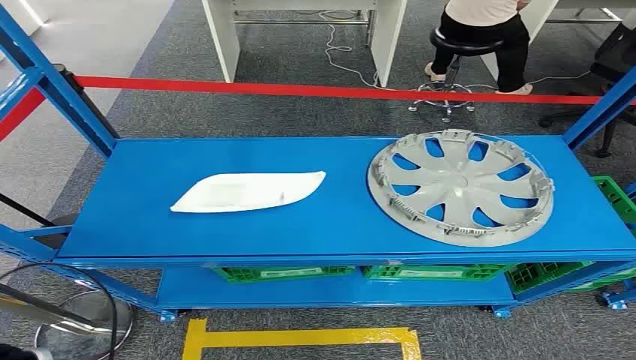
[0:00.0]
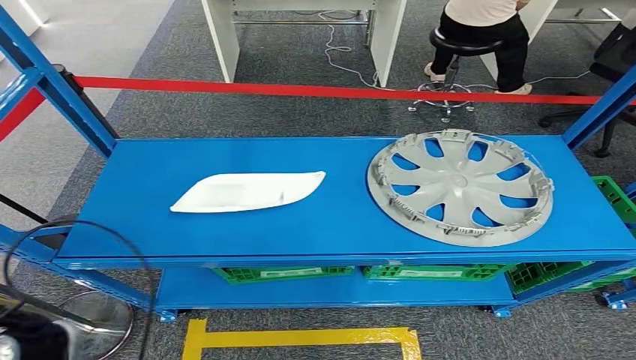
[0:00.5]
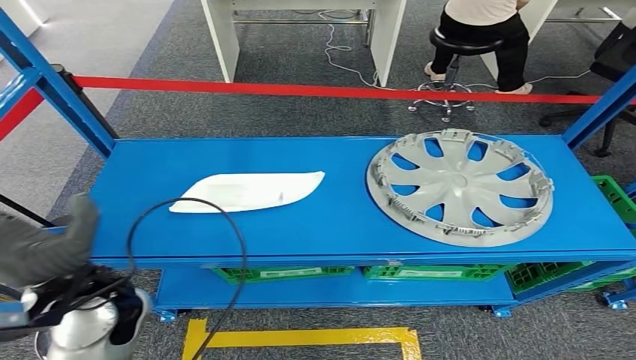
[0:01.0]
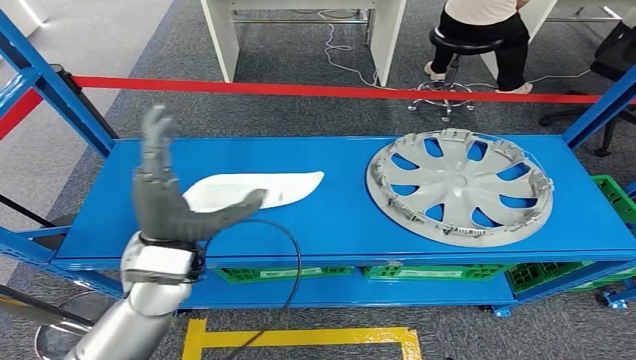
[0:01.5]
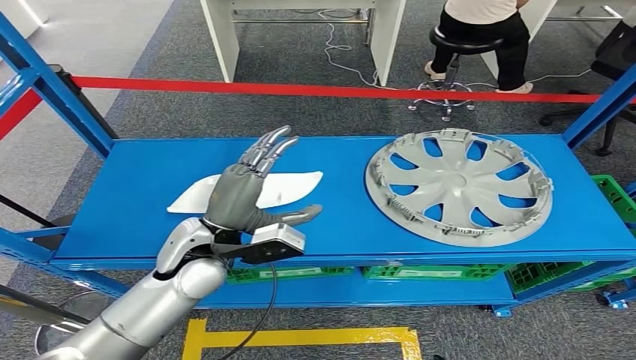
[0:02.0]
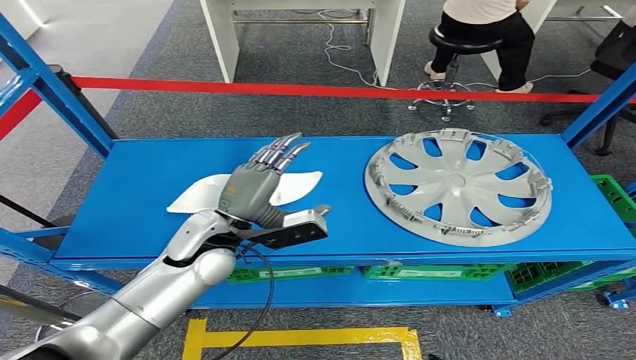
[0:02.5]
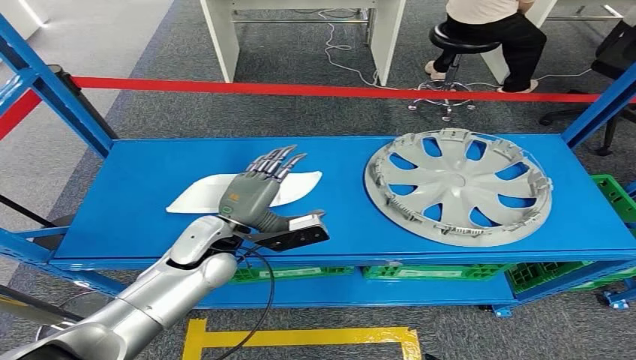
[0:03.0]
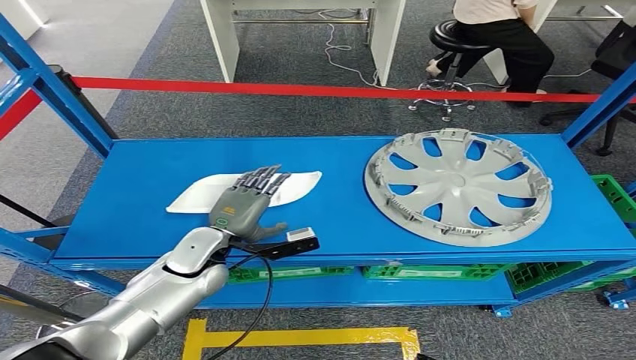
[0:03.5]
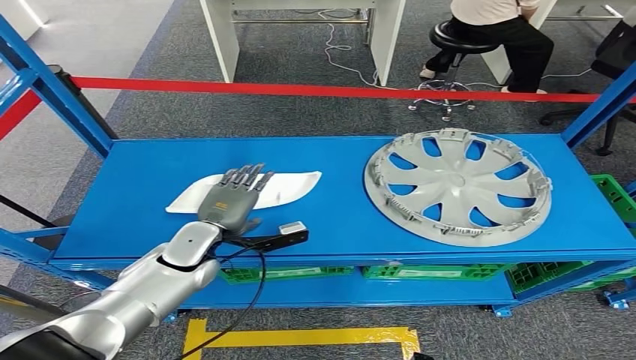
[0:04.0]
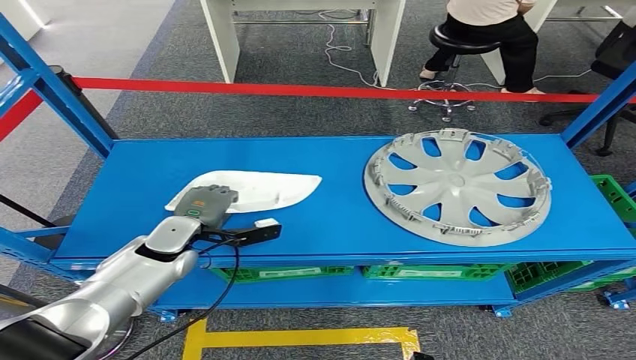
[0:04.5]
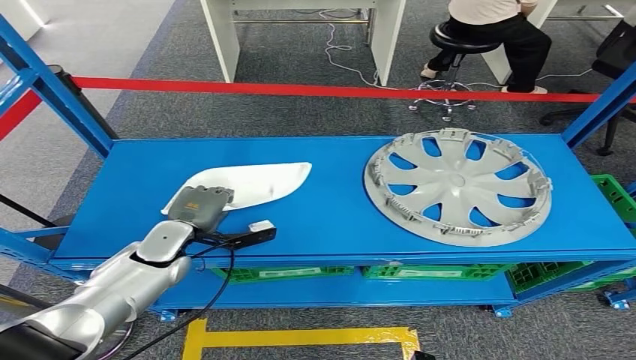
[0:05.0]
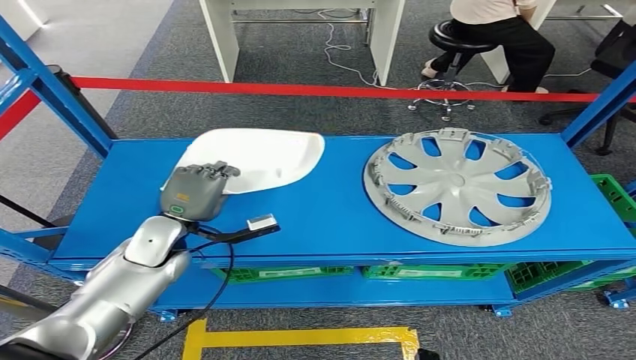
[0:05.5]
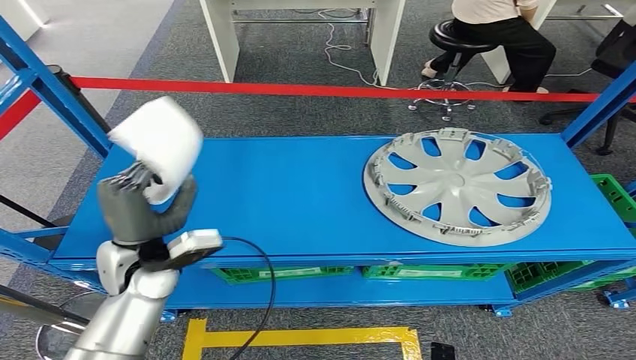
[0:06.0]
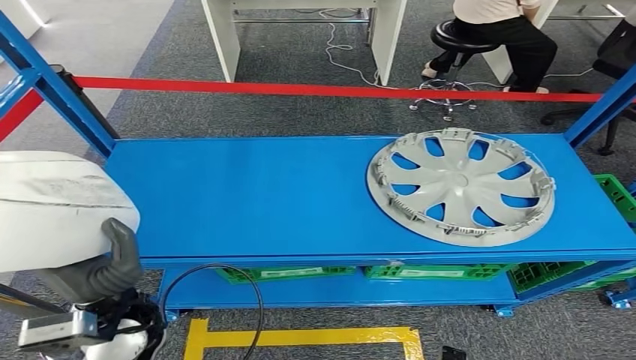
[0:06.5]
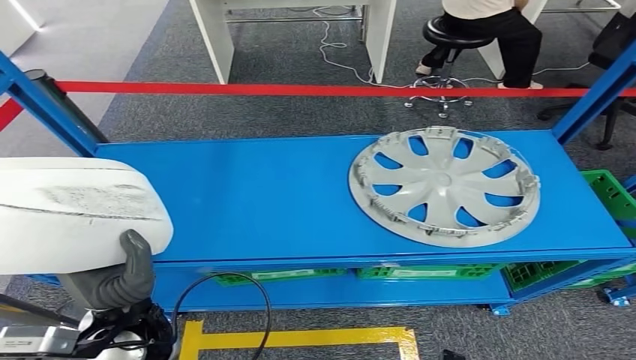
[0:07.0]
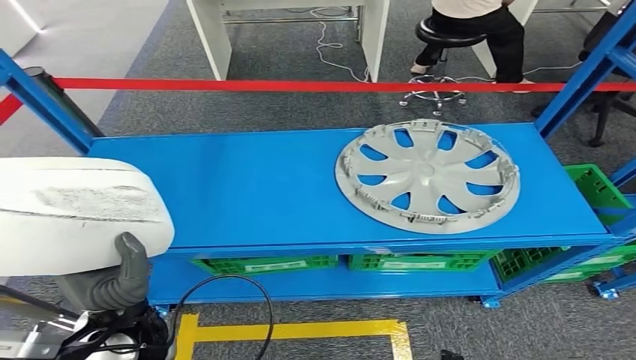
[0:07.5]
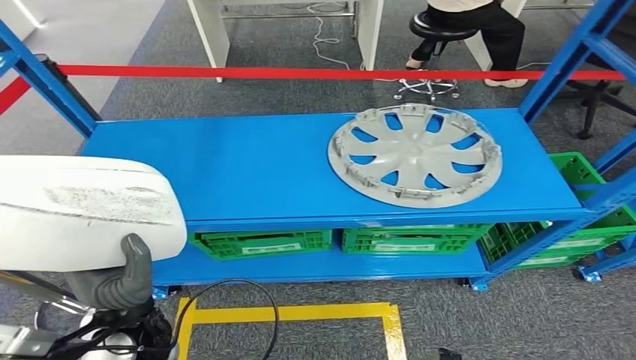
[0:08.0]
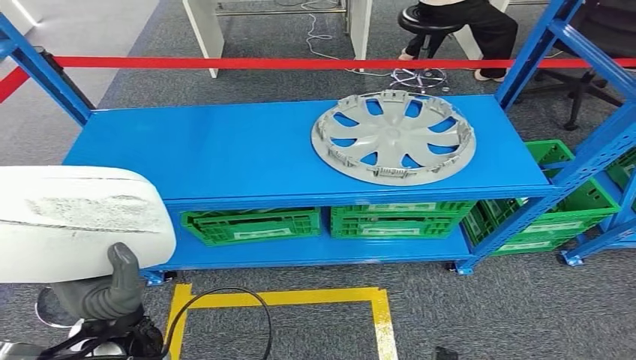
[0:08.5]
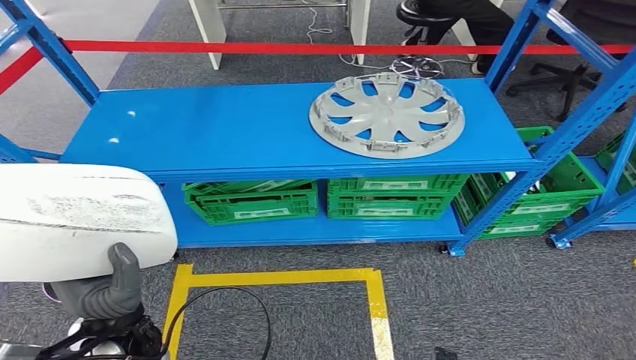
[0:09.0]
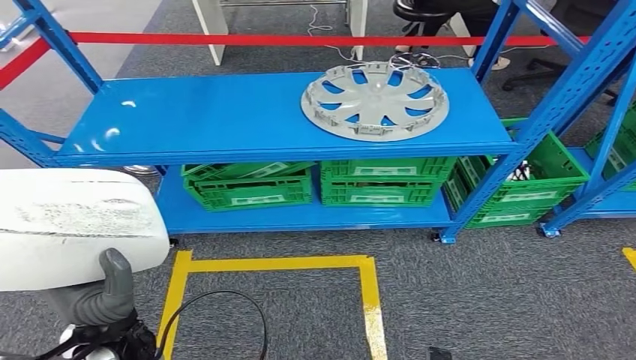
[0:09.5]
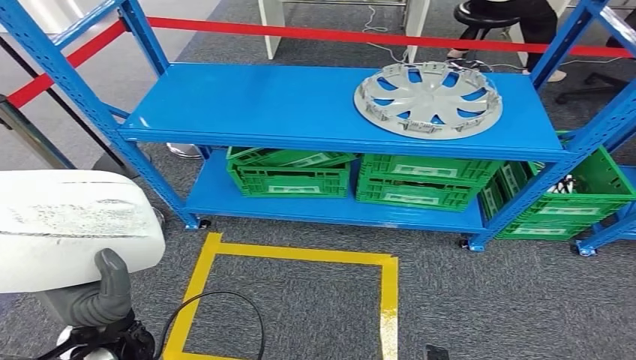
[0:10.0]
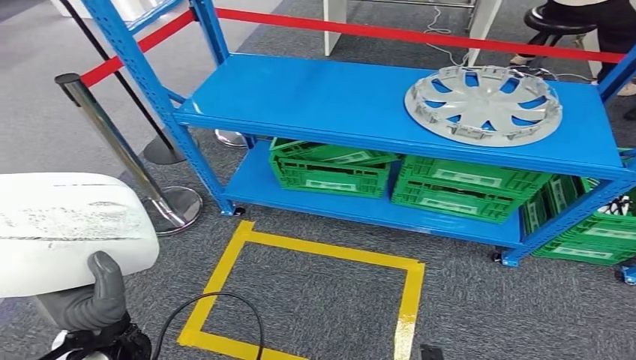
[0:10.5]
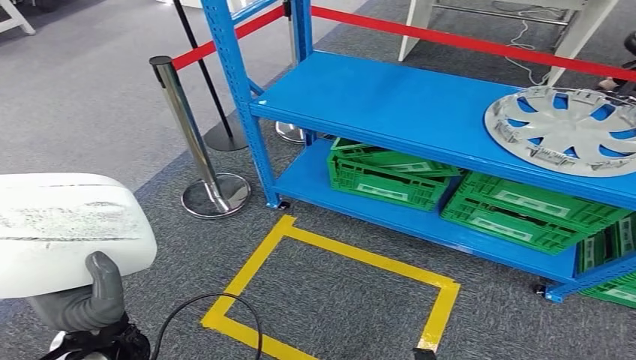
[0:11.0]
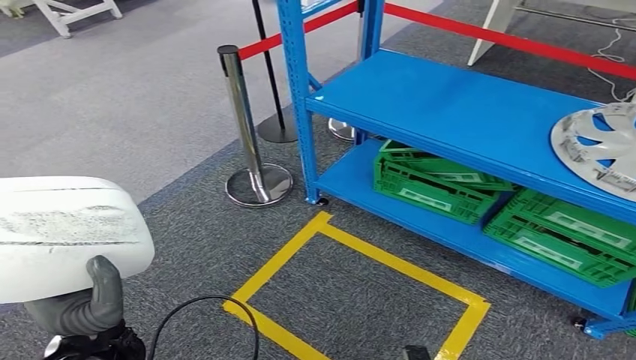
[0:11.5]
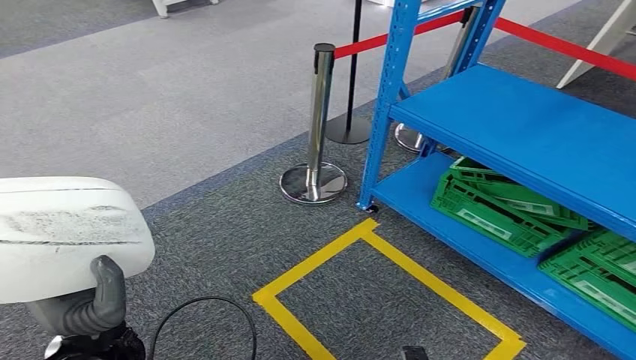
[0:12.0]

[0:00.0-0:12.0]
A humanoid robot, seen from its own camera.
Step, 0:00.0 to 0:05.5: Pick up the small component from the shelf.
0:02.0 to 0:04.0: The left hand moves downward, about 10 cm.
0:04.0 to 0:06.0: The left hand moves upward, roughly 5 cm.

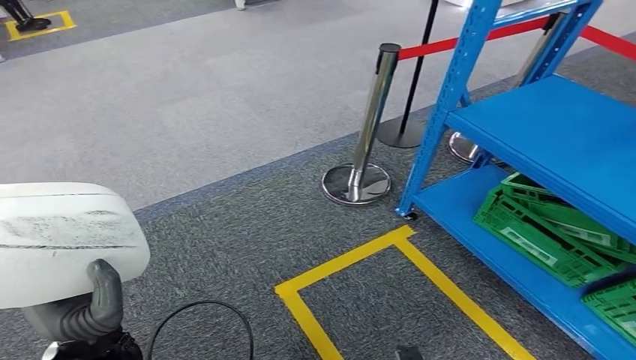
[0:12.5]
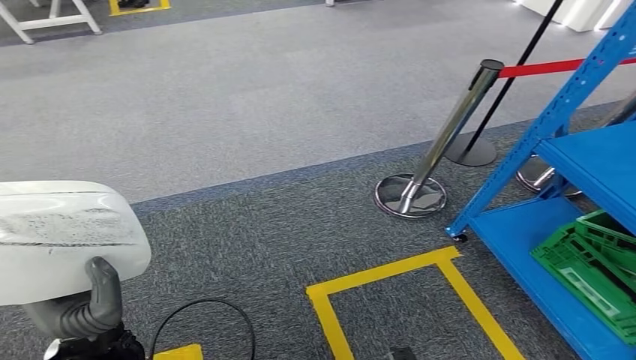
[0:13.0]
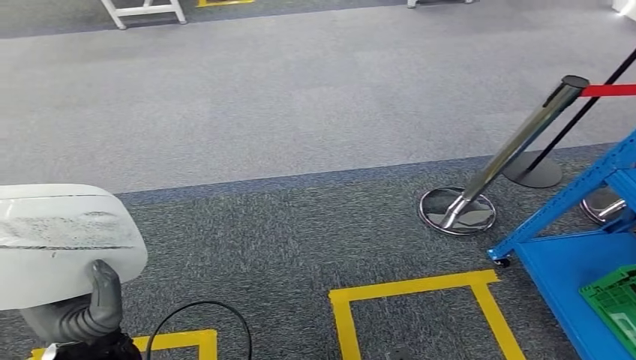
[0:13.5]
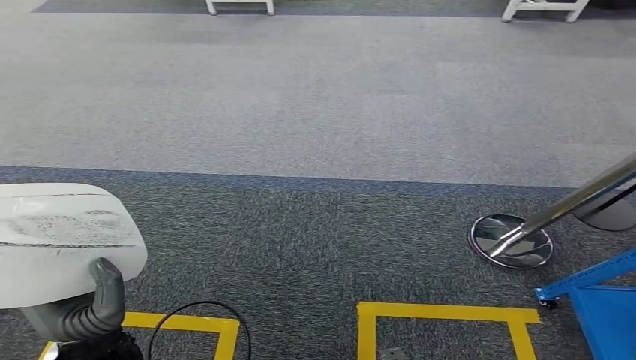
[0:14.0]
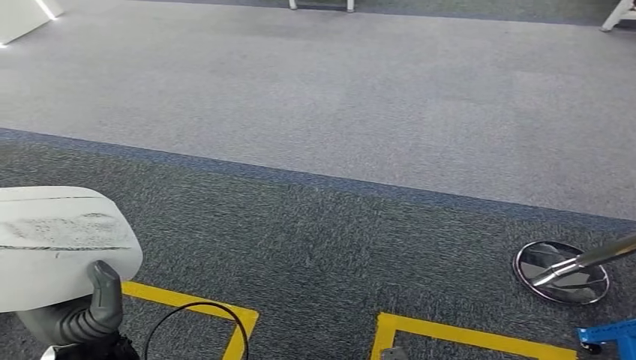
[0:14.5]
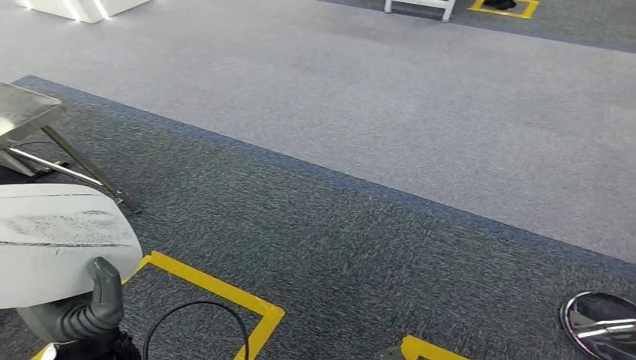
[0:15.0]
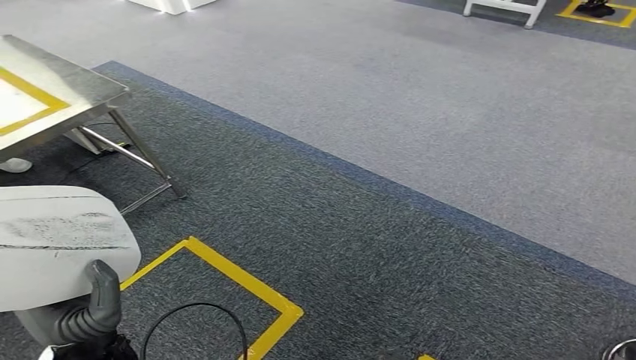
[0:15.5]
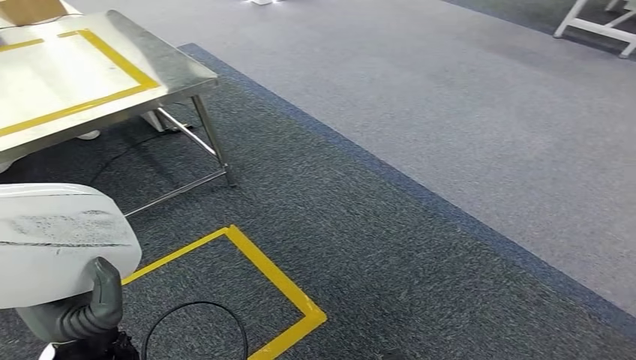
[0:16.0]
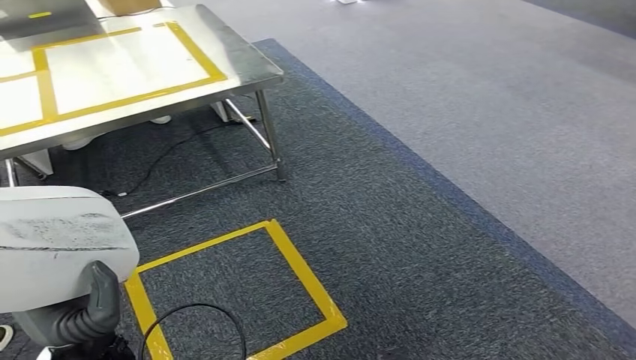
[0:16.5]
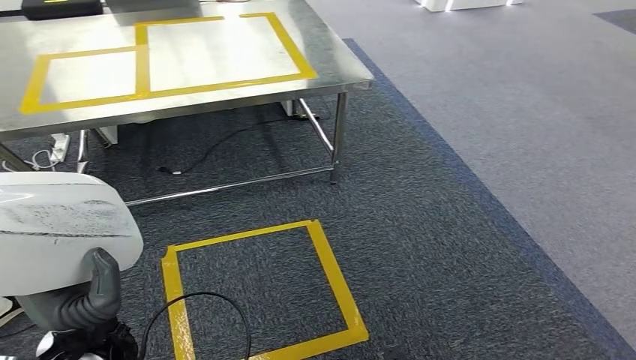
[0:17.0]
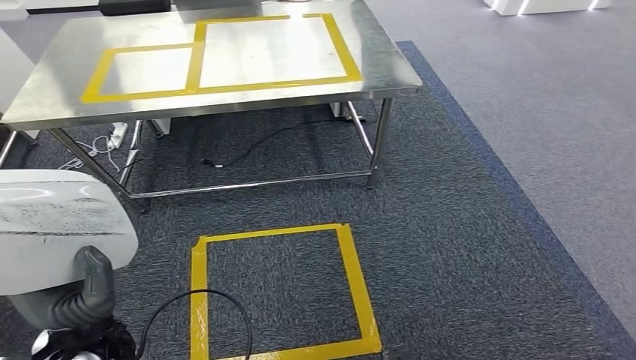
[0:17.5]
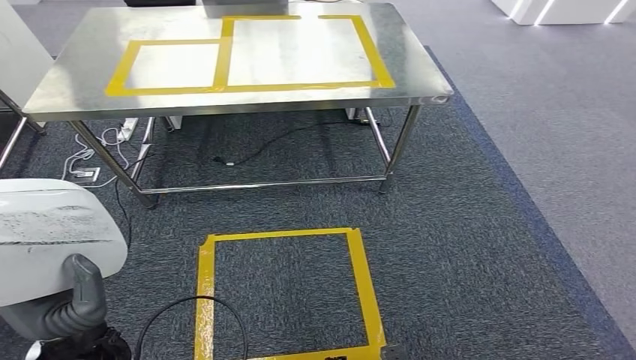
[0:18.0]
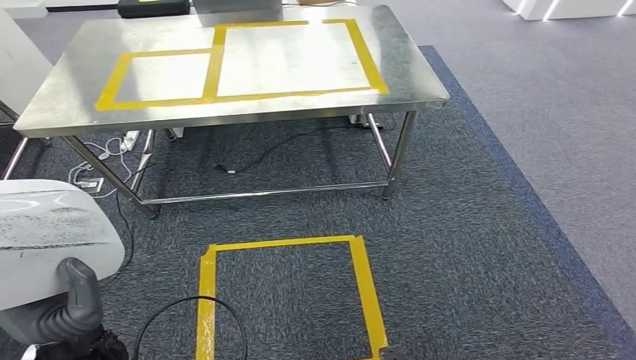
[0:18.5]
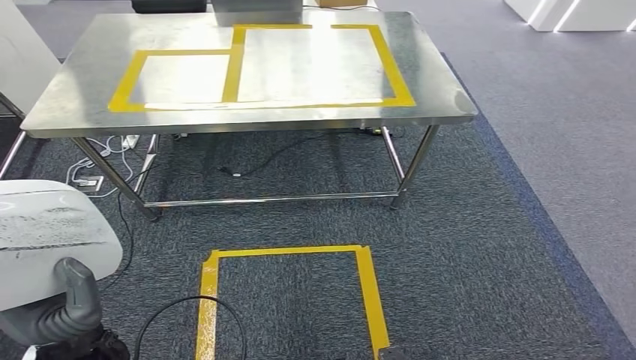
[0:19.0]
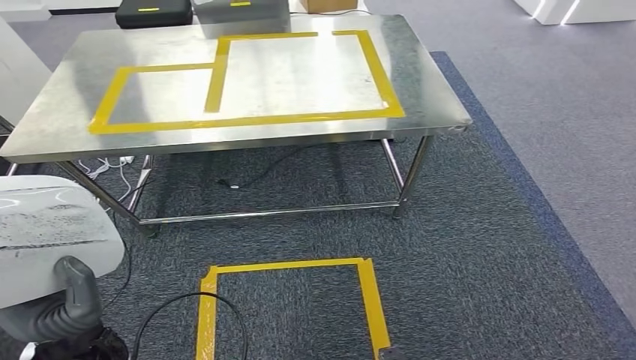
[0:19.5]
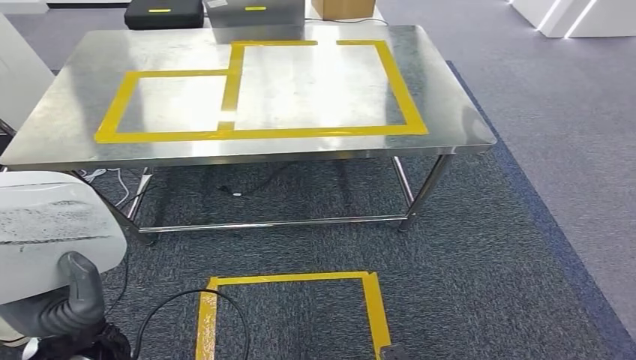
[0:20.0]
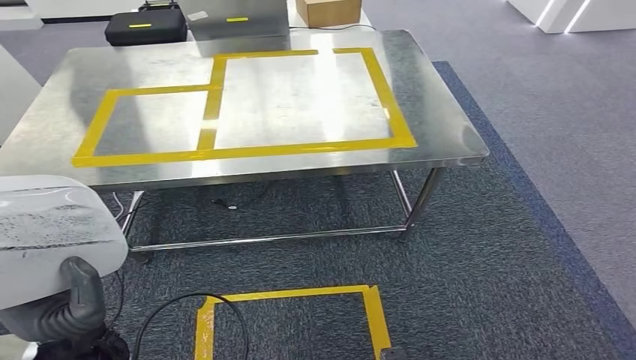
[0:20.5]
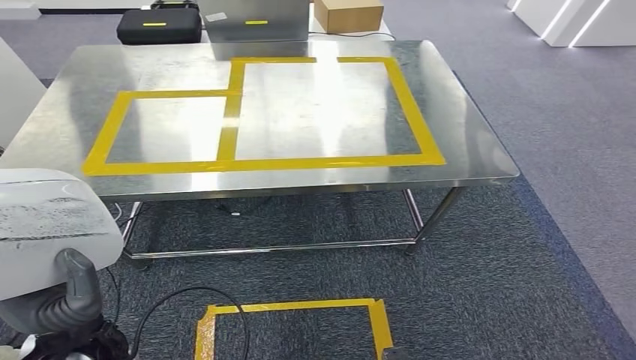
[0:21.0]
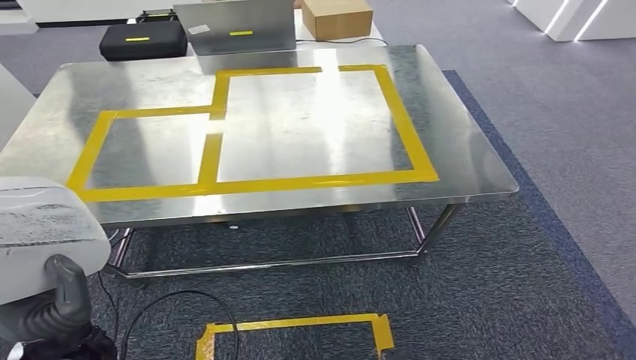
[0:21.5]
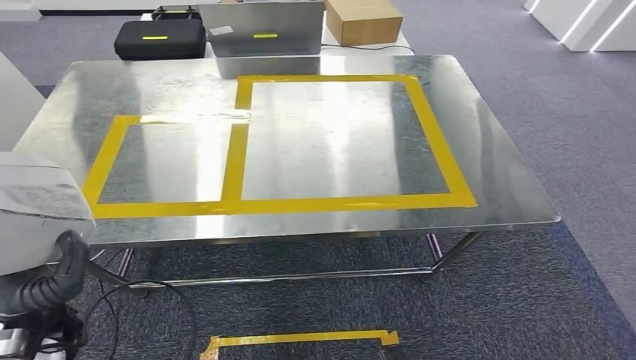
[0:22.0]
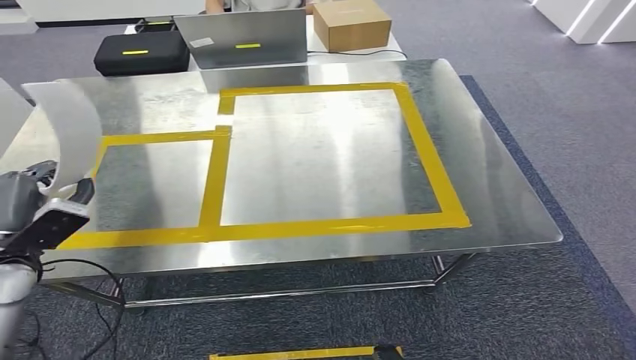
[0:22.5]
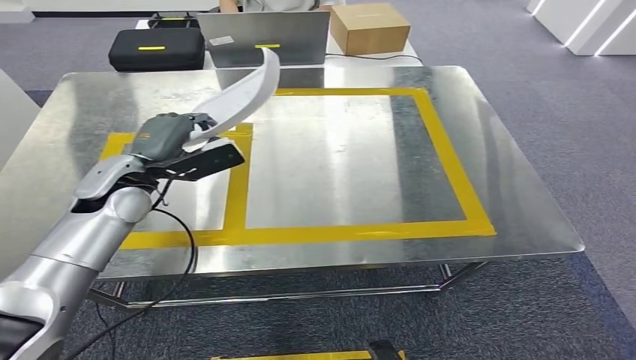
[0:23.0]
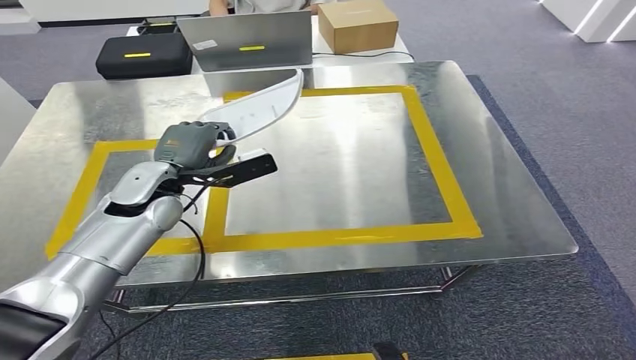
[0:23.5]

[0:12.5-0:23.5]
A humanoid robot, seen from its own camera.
Step, 0:12.5 to 0:20.5: Move the small component to the workbench.
